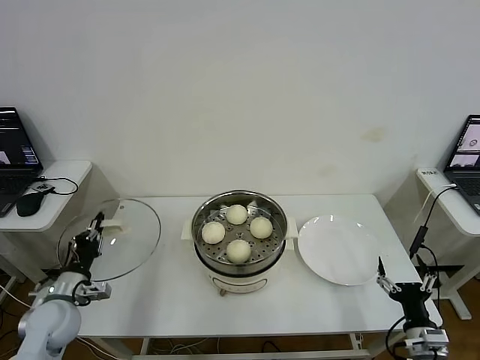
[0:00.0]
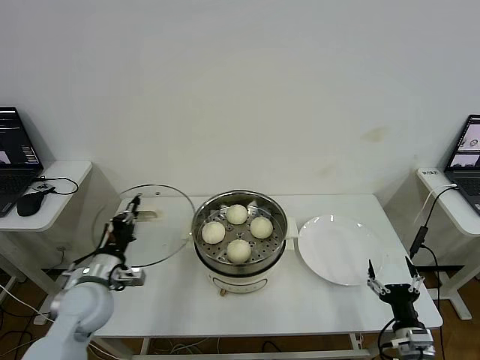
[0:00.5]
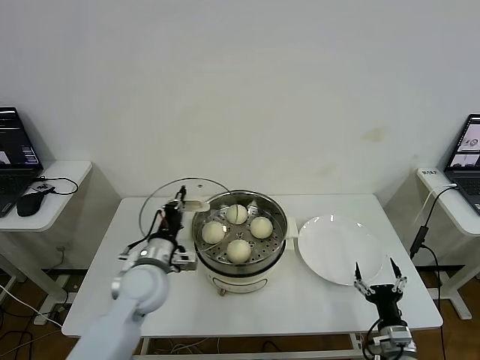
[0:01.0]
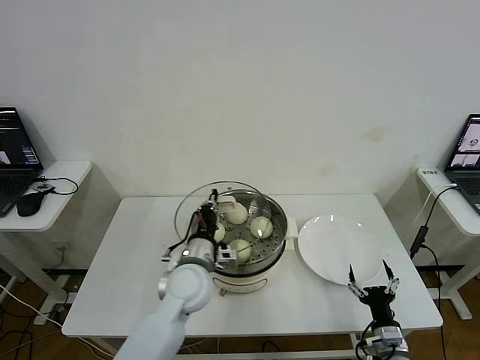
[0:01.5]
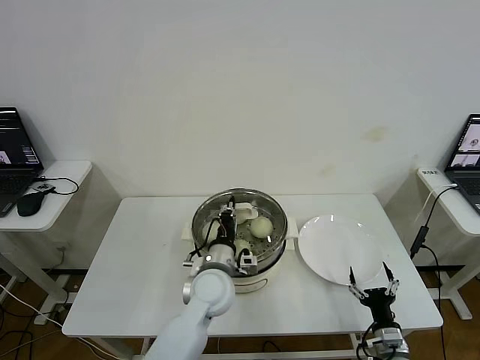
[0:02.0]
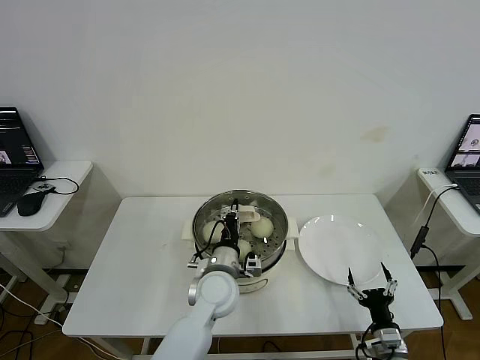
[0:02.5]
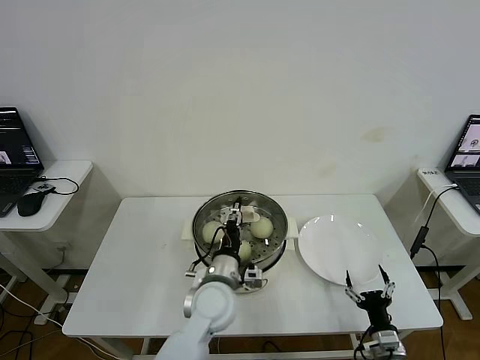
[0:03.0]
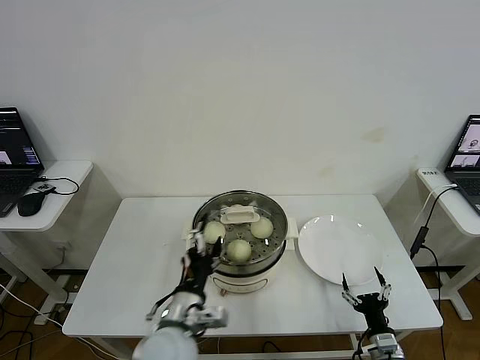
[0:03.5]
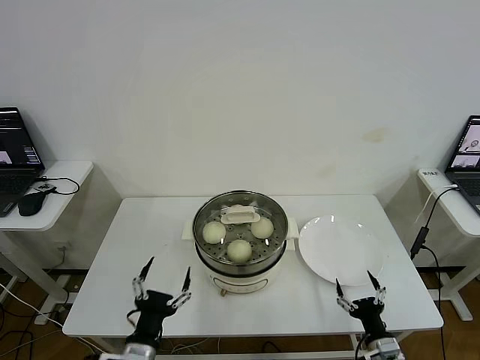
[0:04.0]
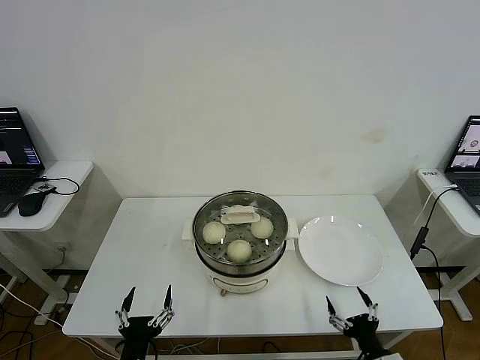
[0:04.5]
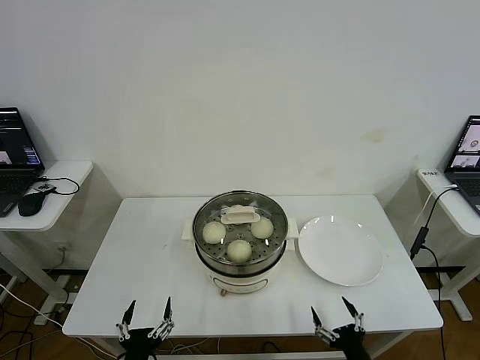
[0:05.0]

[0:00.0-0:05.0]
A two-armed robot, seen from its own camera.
Step, 0:00.0 to 0:02.5: Place the pot lid on the steamer with left gripper.
0:00.0 to 0:02.5: The left gripper heads to the right, covering approximately 35 cm. The right gripper moves downward, about 5 cm.
0:02.5 to 0:05.0: The left gripper moves backward and to the left, some 30 cm, and opens; the right gripper is displaced backward, to the left and upward by roughly 10 cm.
